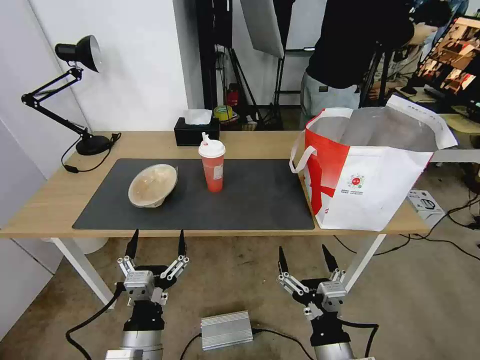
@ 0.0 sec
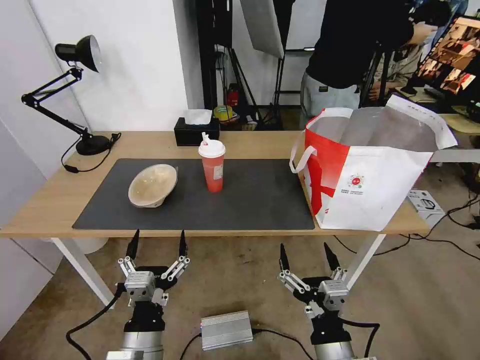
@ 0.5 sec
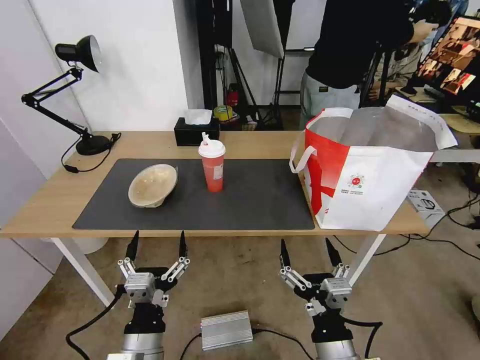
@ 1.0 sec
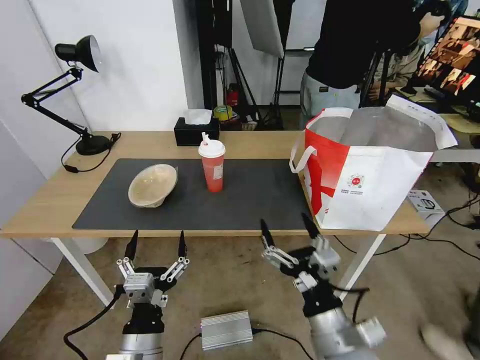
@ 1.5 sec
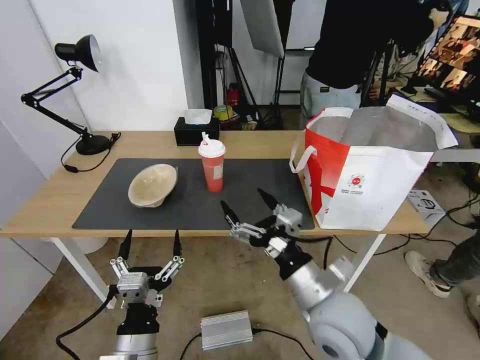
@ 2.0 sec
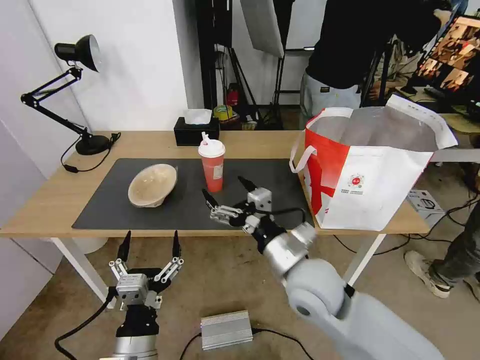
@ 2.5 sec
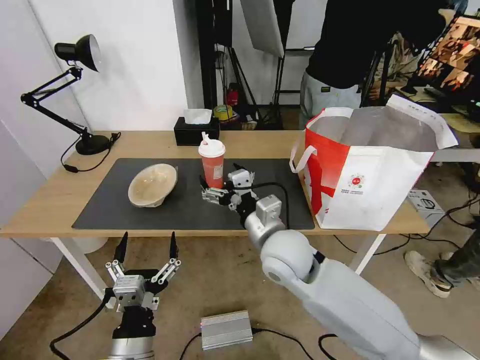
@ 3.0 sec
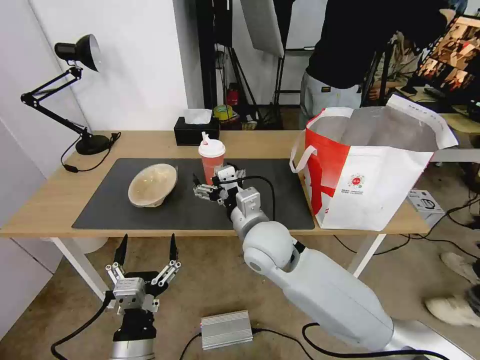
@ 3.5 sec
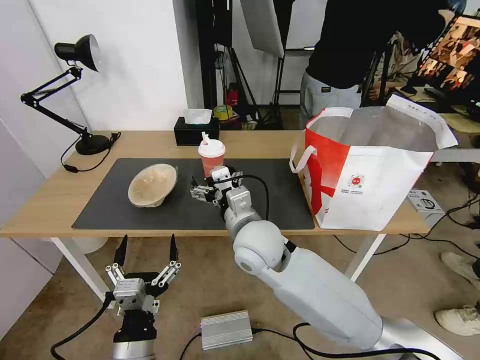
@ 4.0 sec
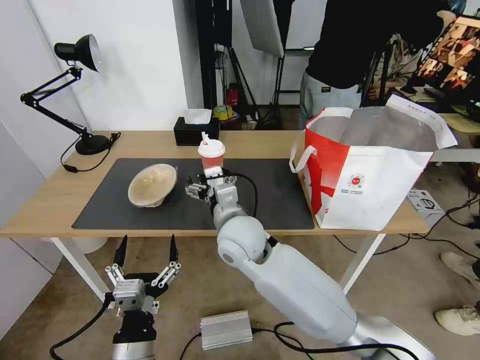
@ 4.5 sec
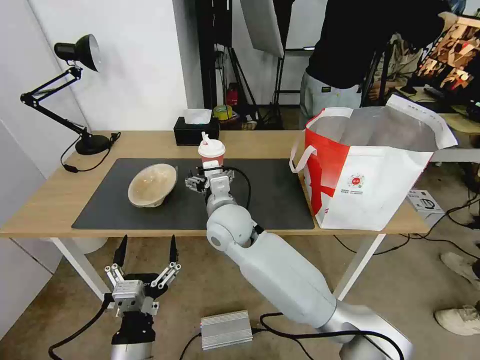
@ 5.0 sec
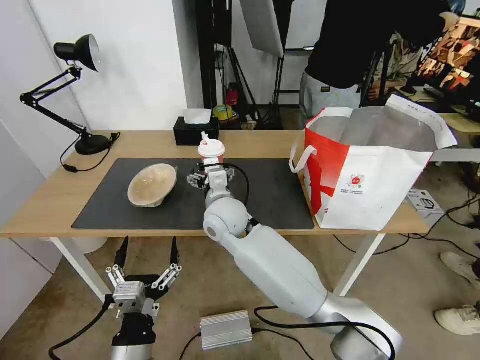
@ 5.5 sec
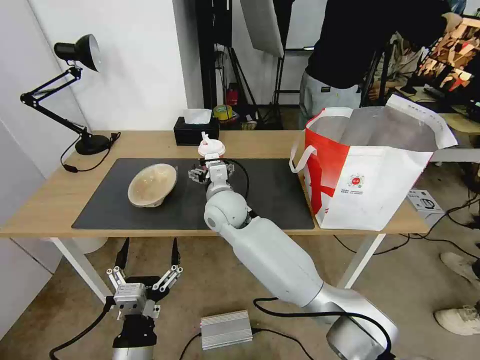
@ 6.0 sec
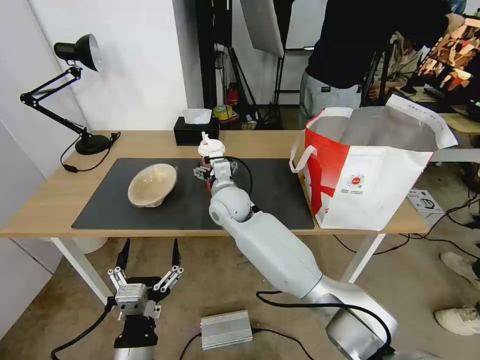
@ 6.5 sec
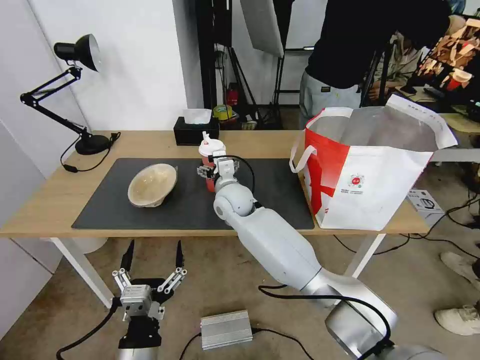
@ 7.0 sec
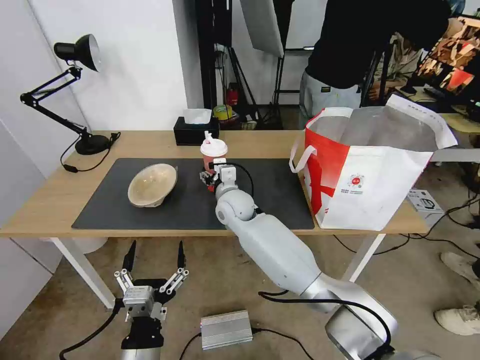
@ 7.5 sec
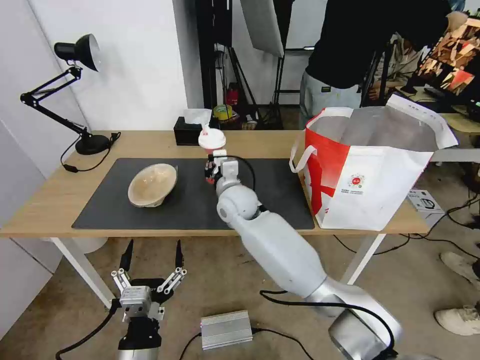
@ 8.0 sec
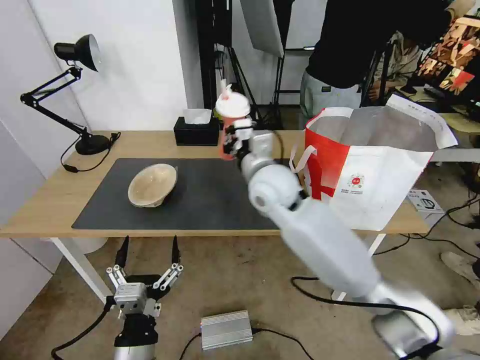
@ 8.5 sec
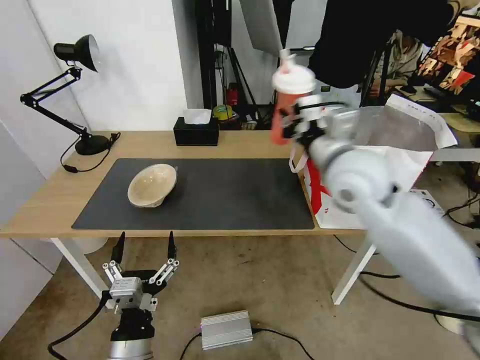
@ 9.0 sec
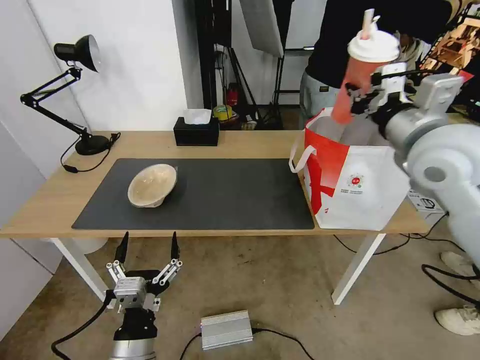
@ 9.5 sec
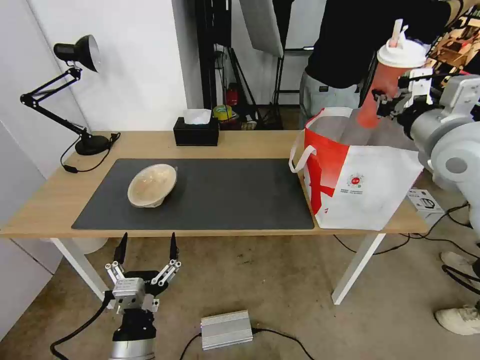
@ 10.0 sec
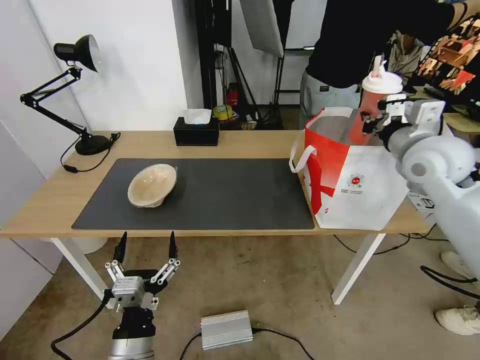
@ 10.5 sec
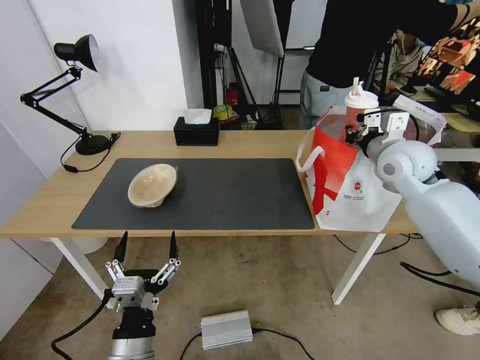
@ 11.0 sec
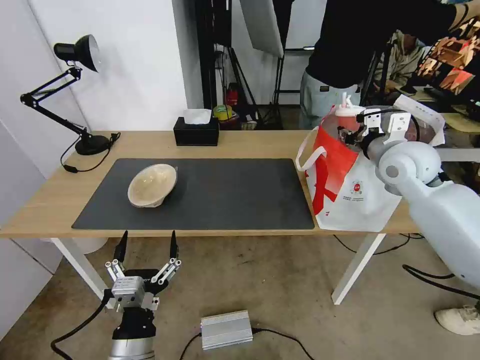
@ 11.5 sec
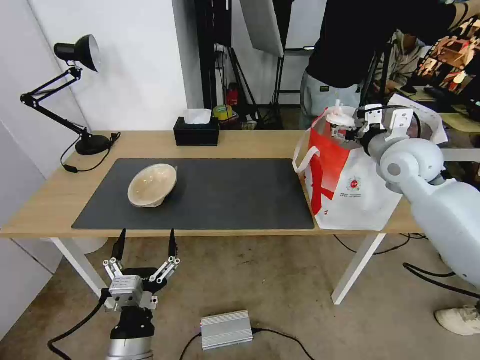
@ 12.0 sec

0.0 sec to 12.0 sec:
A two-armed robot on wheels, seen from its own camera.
Task of the whole recording: Pick up the trash from the table and place it into the takeout bag.
0.0 sec to 2.0 sec: The right gripper goes some 15 cm forward and upward.
2.0 sec to 4.0 sec: The right gripper travels forward and to the left by approximately 20 cm.
4.0 sec to 6.0 sec: The right gripper moves forward and to the left, approximately 10 cm.
6.0 sec to 8.0 sec: The right gripper closes.
8.0 sec to 10.0 sec: The right gripper shifts roughly 40 cm to the right and upward.
10.0 sec to 12.0 sec: The right gripper shifts roughly 10 cm downward and forward, and opens its fingers.

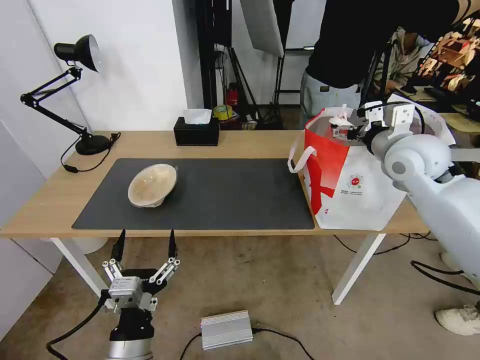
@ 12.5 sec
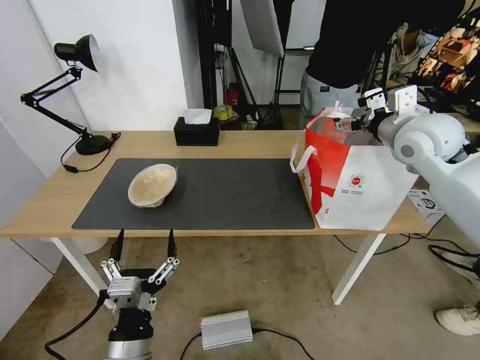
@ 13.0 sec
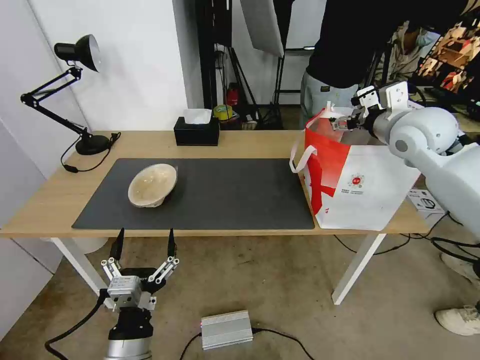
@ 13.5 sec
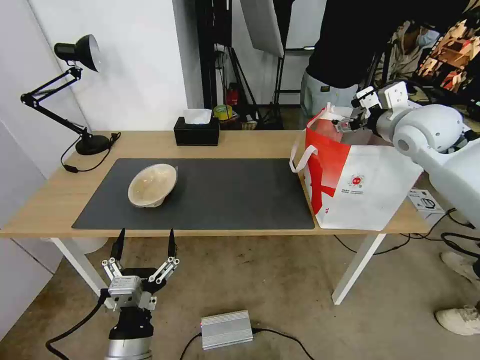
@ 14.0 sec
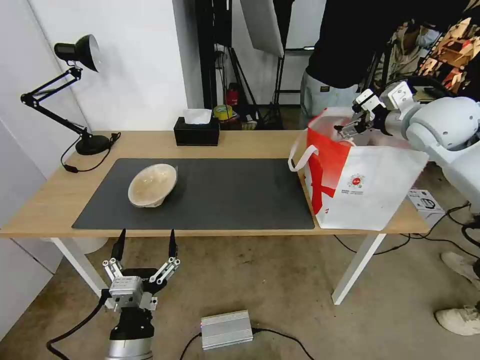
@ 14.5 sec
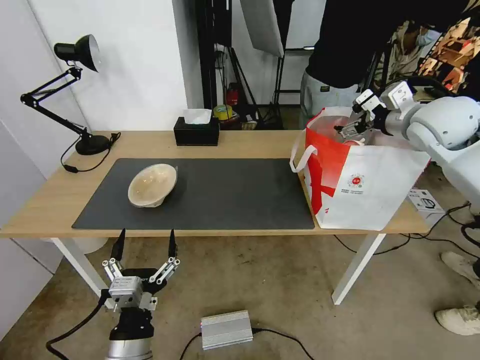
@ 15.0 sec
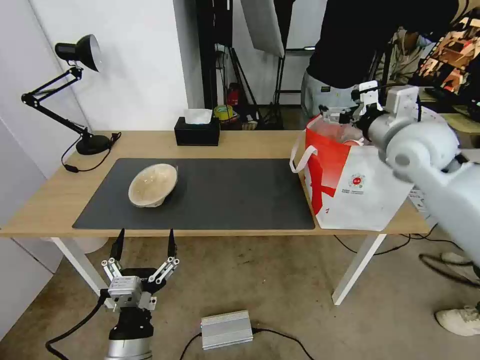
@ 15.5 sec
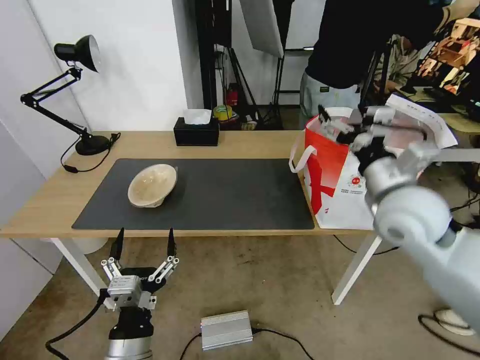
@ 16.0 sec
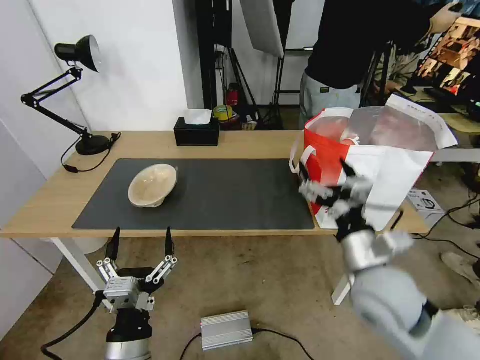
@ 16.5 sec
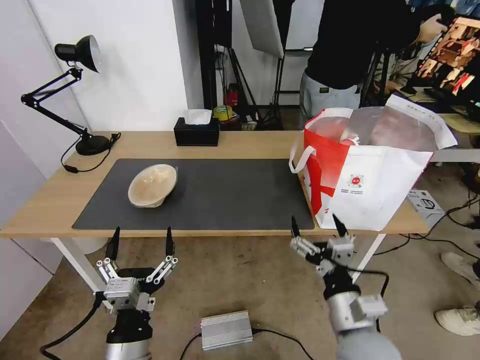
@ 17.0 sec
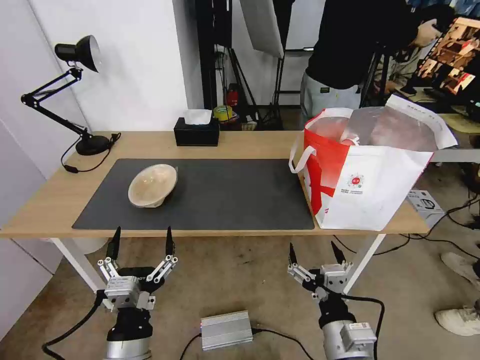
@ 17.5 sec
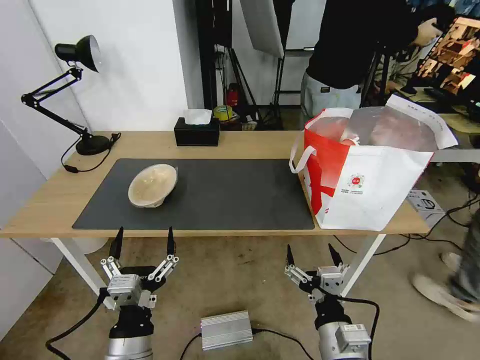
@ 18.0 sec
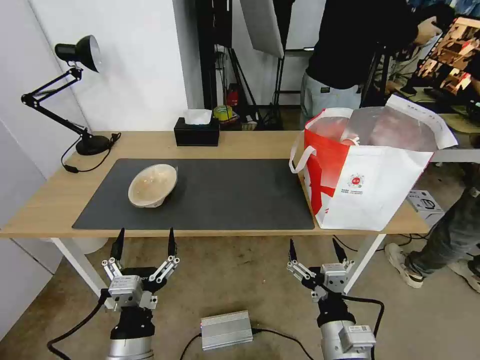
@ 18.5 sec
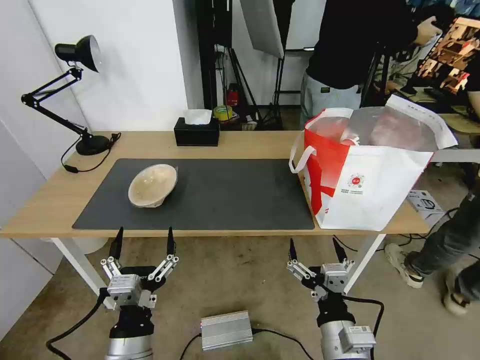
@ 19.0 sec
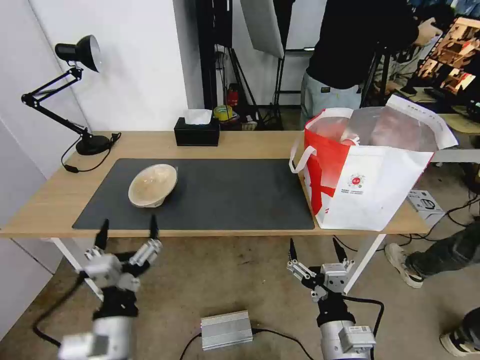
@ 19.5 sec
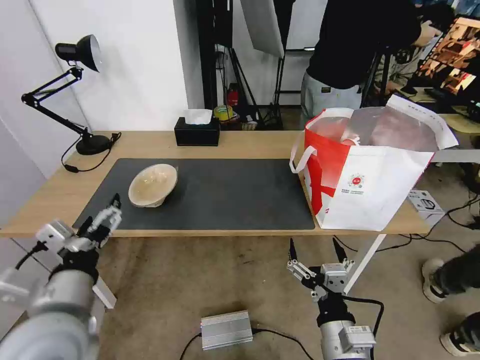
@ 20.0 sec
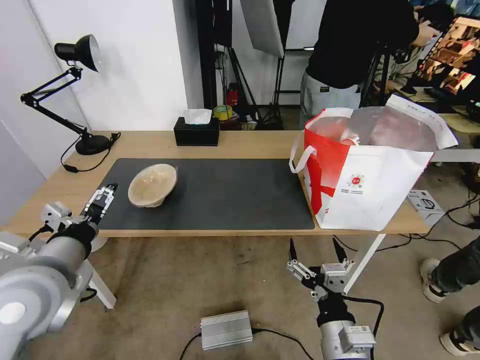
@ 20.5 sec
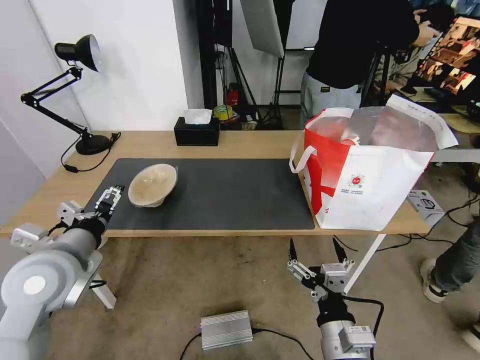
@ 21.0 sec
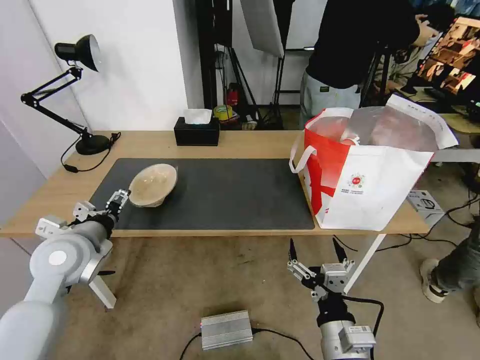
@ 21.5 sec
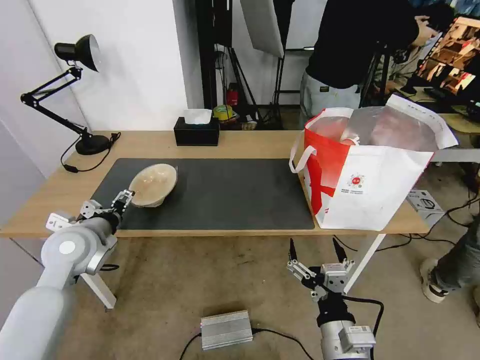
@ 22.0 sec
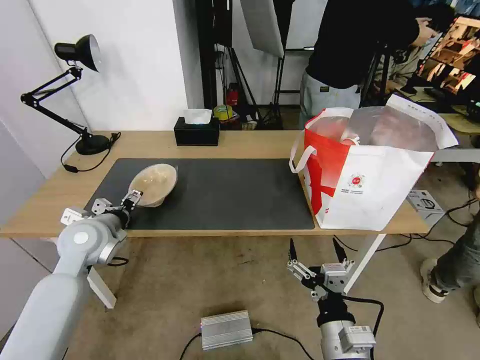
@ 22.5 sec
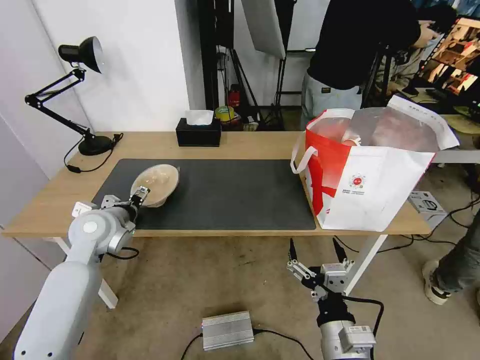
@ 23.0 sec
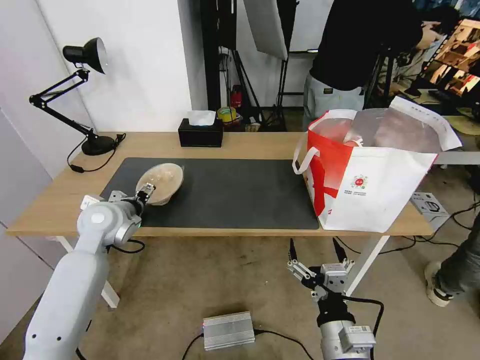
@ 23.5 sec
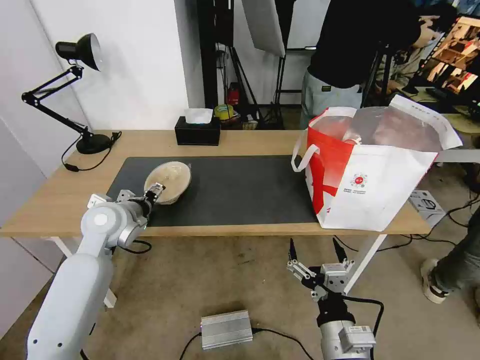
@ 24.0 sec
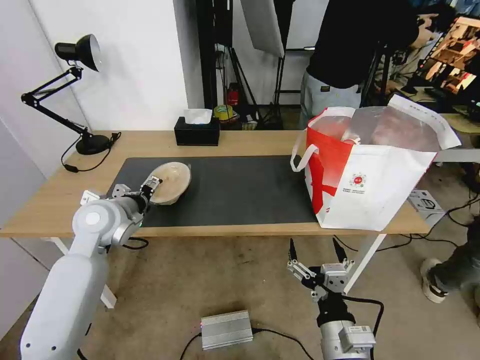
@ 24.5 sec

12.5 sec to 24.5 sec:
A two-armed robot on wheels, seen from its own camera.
Task of the whole recording: Pick up the trash from the table and place it into the takeout bag.
12.5 sec to 14.5 sec: The right gripper travels upward by some 5 cm.
14.5 sec to 16.5 sec: The right gripper moves backward, downward and to the left, about 30 cm.
16.5 sec to 18.5 sec: The right gripper shifts about 15 cm backward, downward and to the left.
18.5 sec to 20.5 sec: The left gripper goes some 20 cm upward, to the left and forward.
20.5 sec to 22.5 sec: The left gripper is displaced forward and downward by roughly 15 cm.
22.5 sec to 24.5 sec: The left gripper shifts by roughly 5 cm.

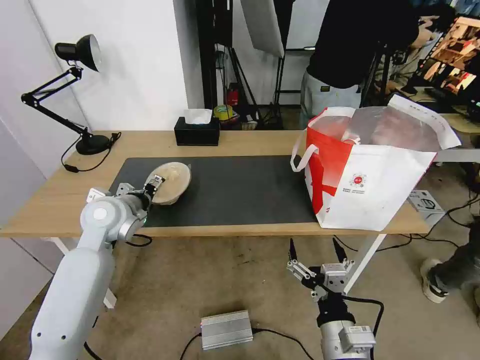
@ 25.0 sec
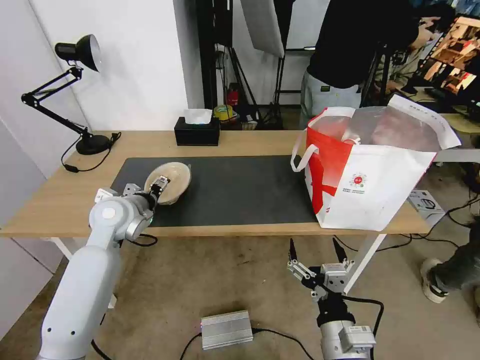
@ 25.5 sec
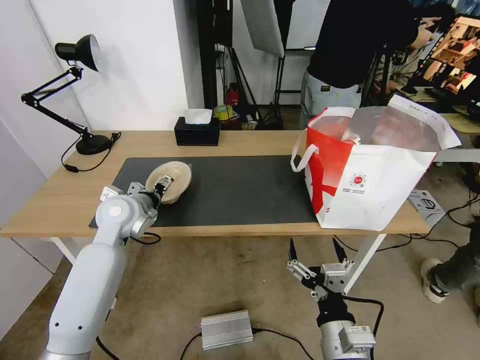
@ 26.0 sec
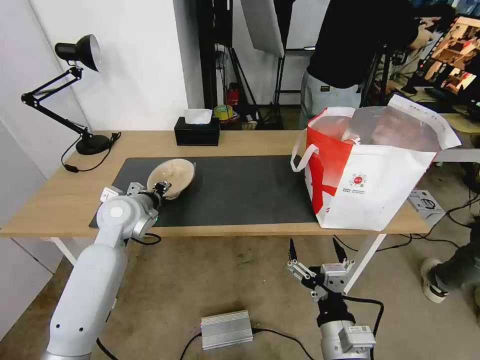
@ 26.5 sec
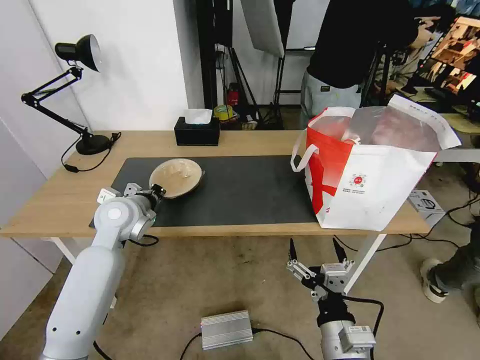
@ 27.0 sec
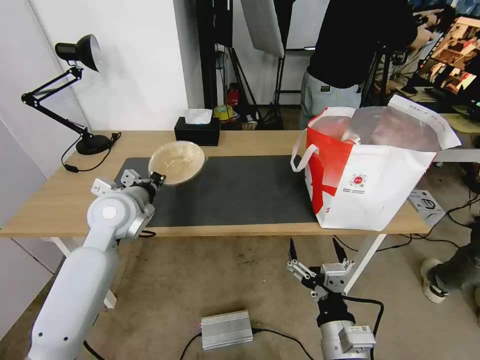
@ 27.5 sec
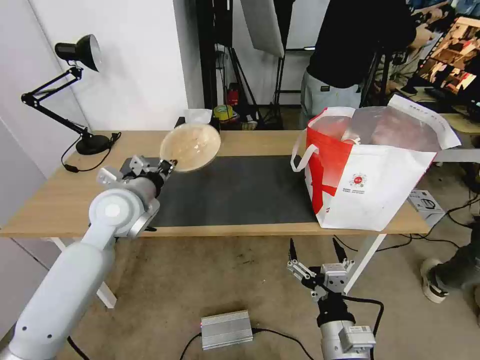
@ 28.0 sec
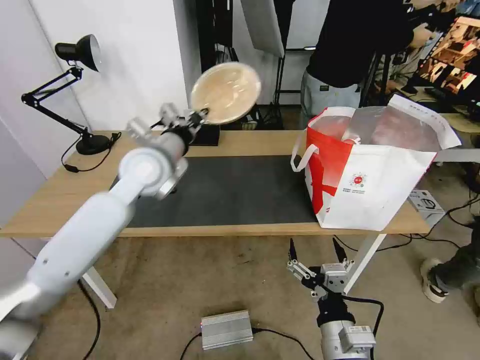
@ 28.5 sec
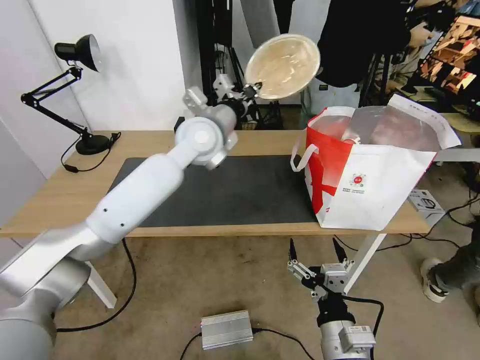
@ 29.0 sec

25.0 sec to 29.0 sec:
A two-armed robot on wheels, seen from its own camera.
Task of the whole recording: Pick up the trash from the table and place it into the takeout bag.
25.0 sec to 27.0 sec: The left gripper closes its fingers.
27.0 sec to 29.0 sec: The left gripper is displaced to the right, upward and forward by some 25 cm.
